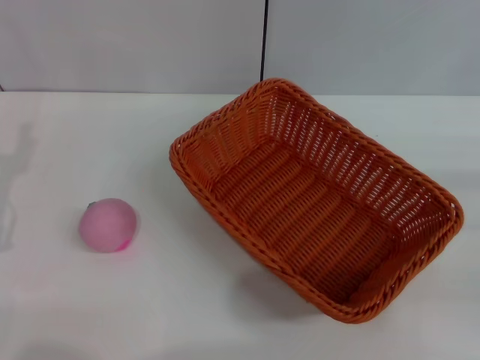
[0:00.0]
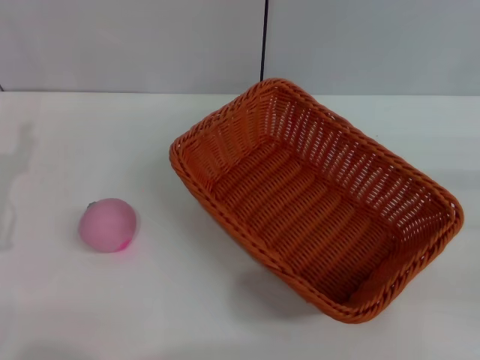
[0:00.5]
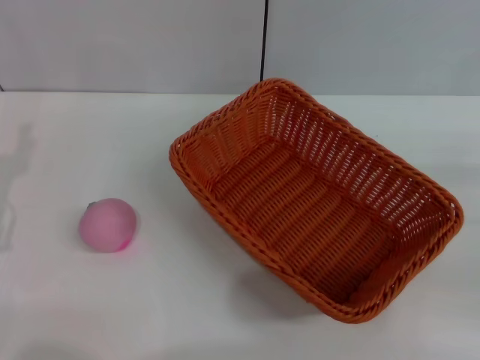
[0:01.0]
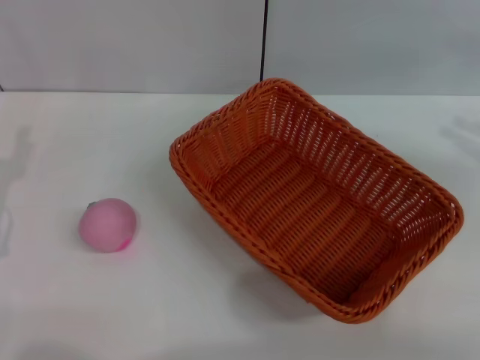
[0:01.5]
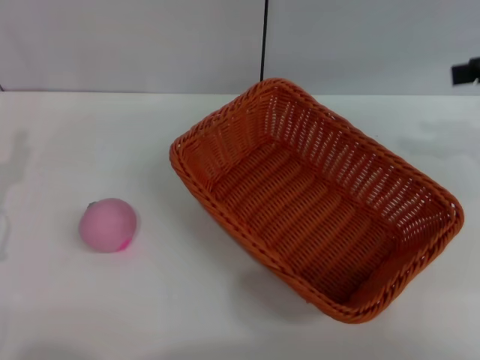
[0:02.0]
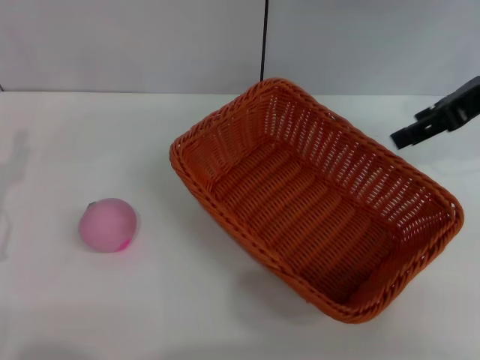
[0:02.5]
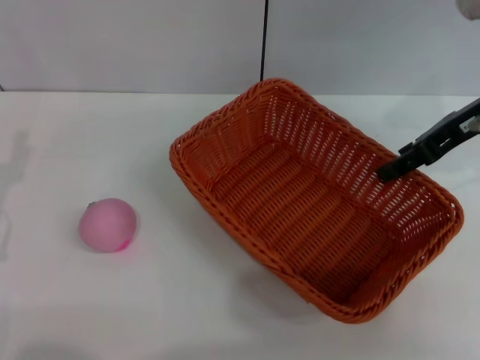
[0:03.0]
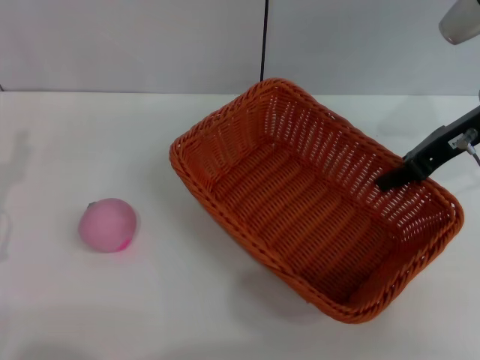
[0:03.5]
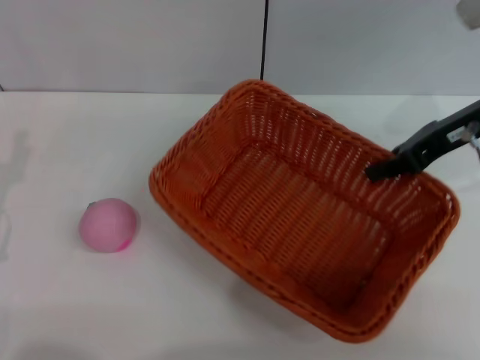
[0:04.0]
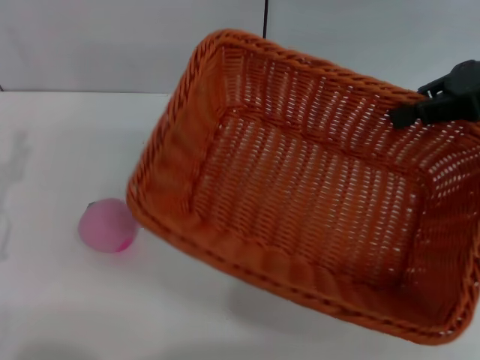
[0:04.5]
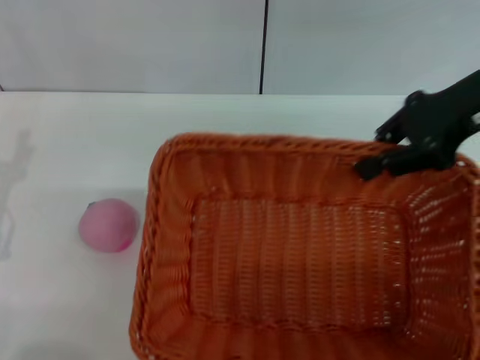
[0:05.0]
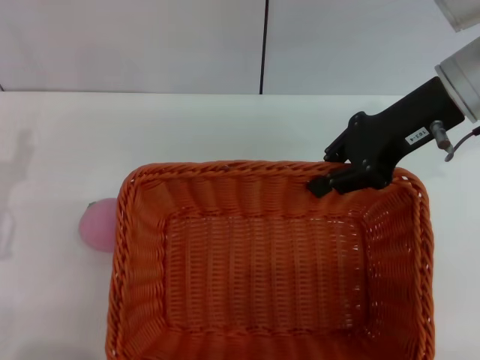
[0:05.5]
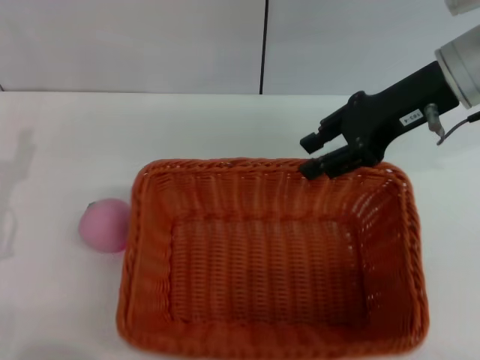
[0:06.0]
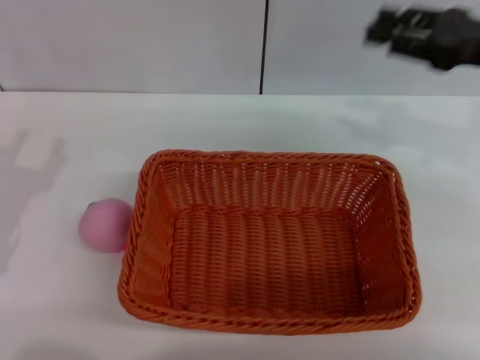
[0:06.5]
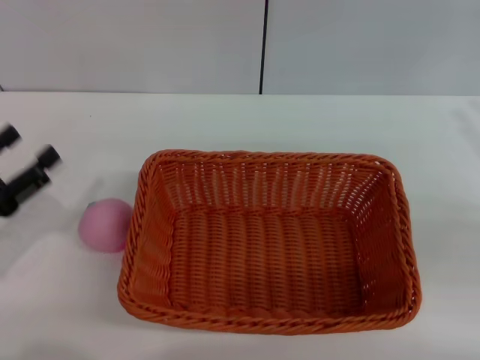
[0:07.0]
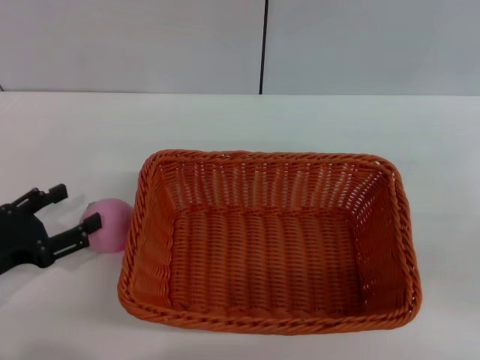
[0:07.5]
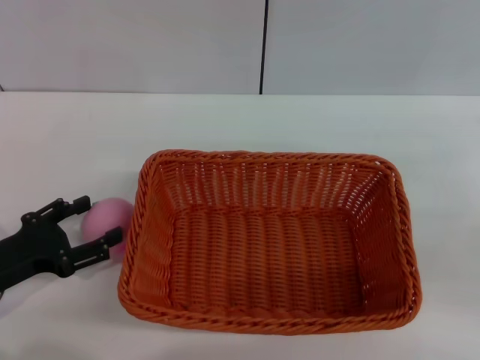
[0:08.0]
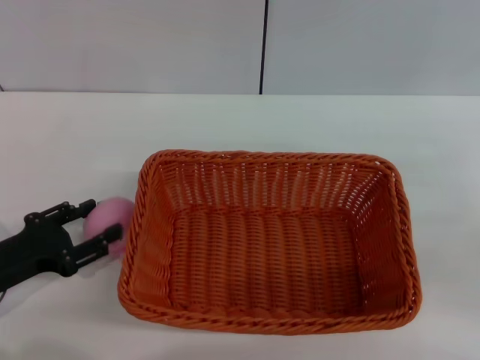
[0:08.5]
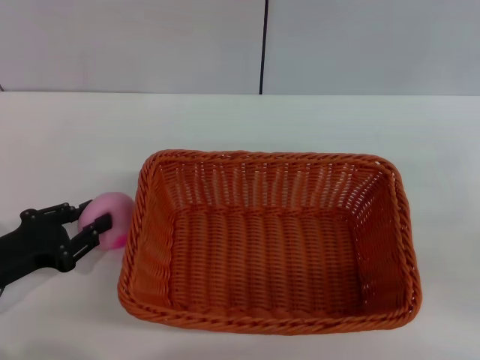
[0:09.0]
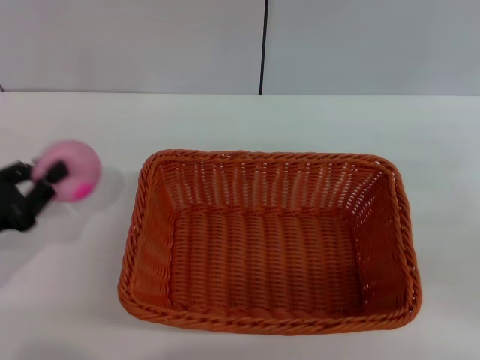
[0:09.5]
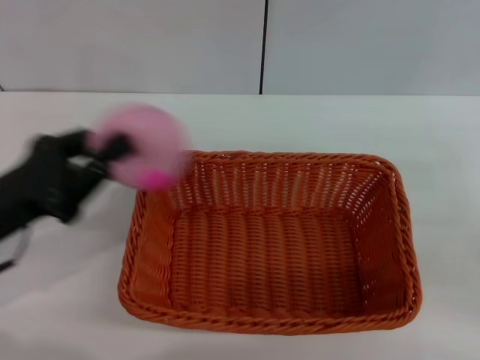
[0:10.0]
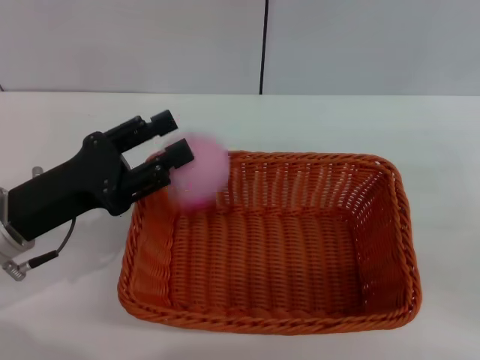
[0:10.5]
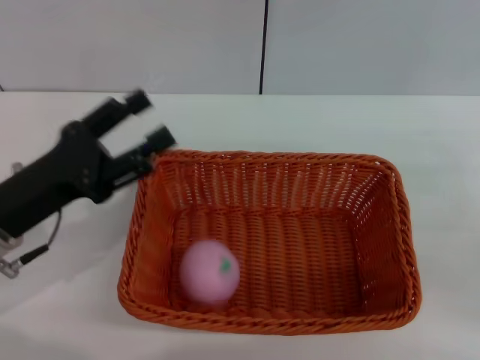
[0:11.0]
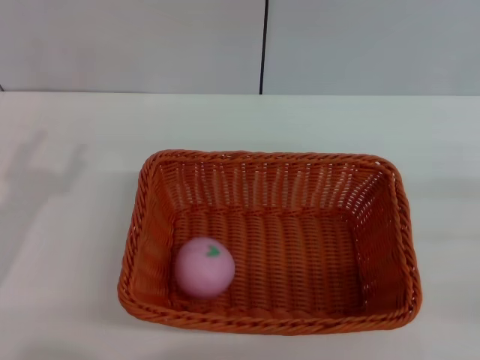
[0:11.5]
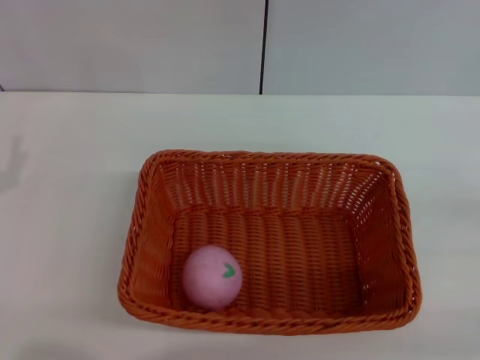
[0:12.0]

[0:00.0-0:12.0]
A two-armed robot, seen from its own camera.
Step, 0.0 to 4.0 s: Pick up the light basket with the right gripper.
Step, 4.5 to 6.0 s: Place the light basket in the center of view with the right gripper.
Step, 6.5 to 9.5 s: Pick up the peach with the left gripper.
Step, 10.0 to 10.5 s: Place the peach into the basket with the left gripper.
0.0 to 2.0 s: The right gripper is displaced upward and forward by approximately 20 cm.
2.0 to 4.0 s: The right gripper shifts about 10 cm to the left and downward, and closes up.
4.0 to 6.0 s: The right gripper ends up some 5 cm from where it was.
6.0 to 8.0 s: The right gripper heads to the right, backward and downward, covering about 25 cm.
8.0 to 10.0 s: The left gripper moves upward, approximately 5 cm, and closes.
10.0 to 12.0 s: The left gripper moves about 5 cm, and opens. The right gripper shifts roughly 5 cm backward.

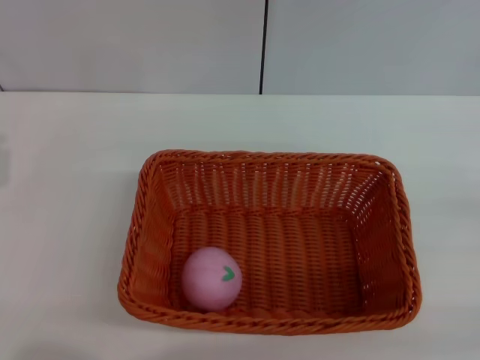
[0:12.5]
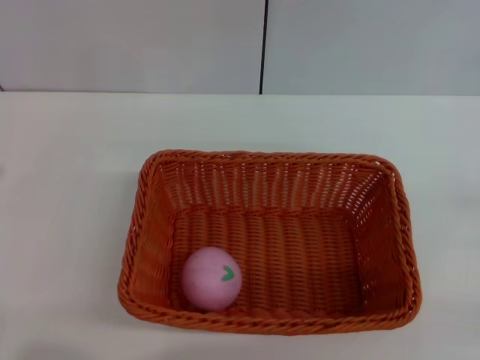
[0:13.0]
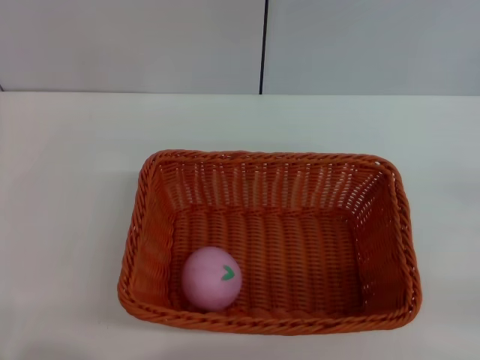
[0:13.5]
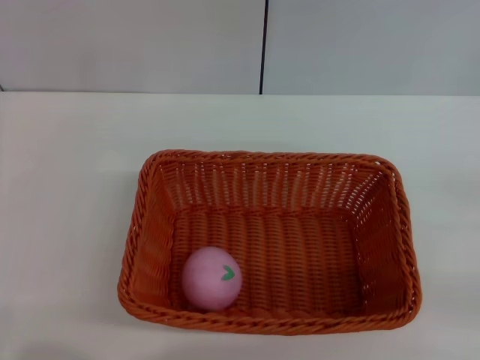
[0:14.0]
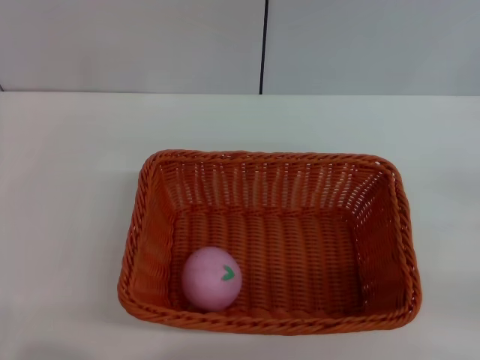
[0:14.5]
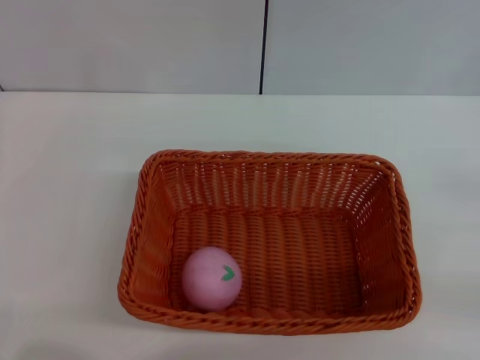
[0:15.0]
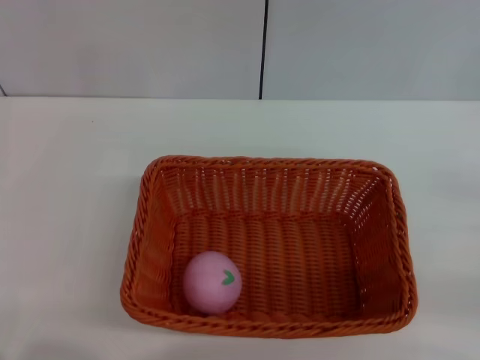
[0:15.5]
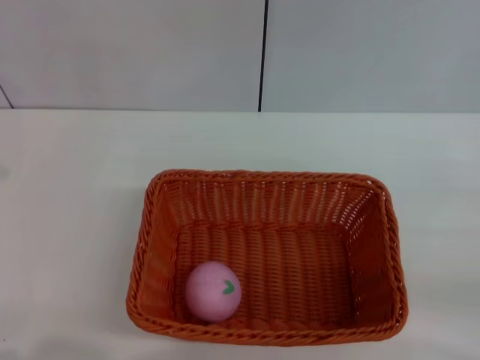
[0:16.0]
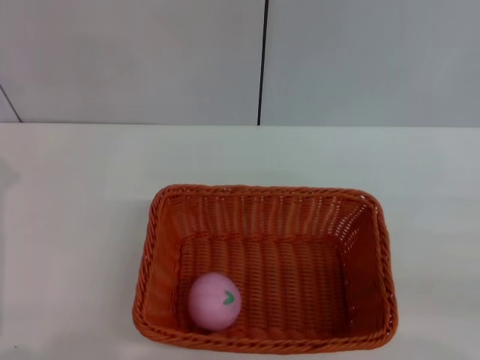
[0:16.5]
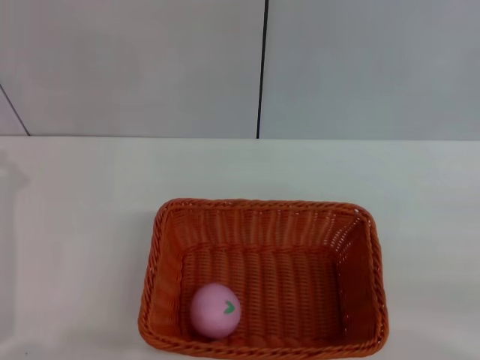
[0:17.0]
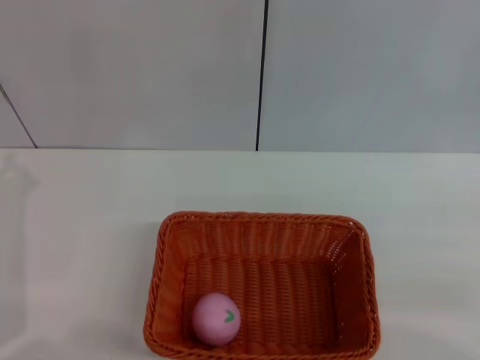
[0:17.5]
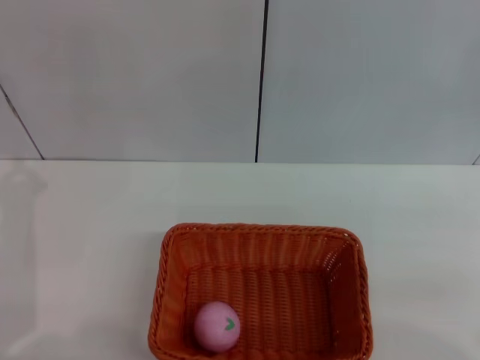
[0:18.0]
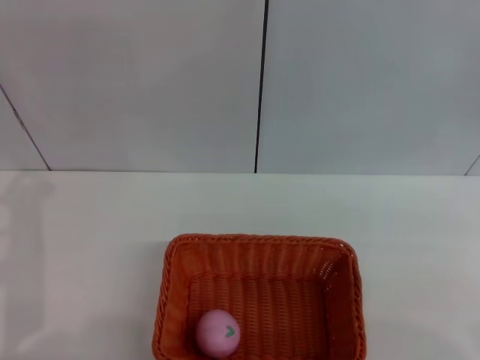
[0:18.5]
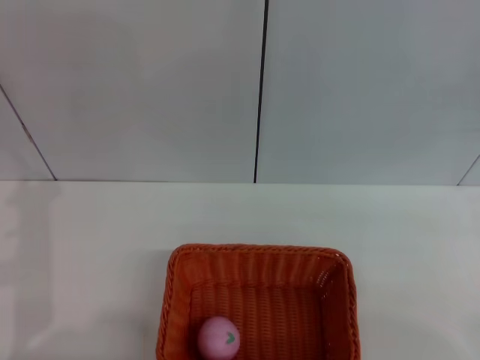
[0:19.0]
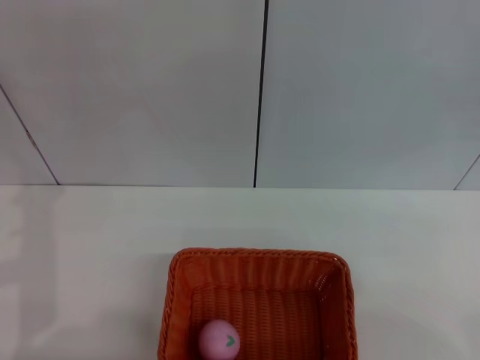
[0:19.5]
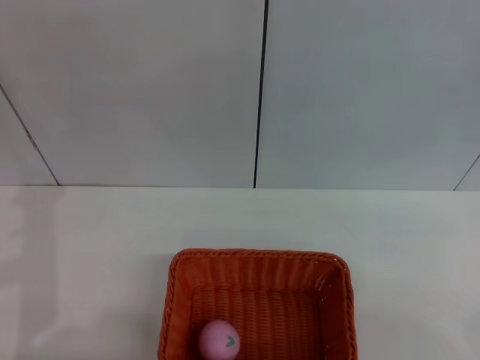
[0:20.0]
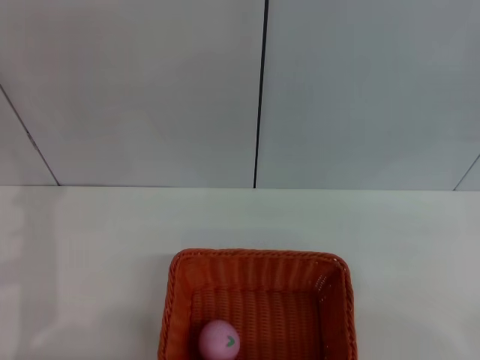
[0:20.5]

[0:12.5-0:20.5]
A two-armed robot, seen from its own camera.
18.5 to 20.5 s: Both grippers stay about where they are.

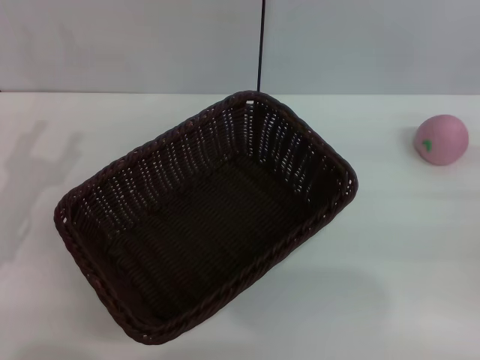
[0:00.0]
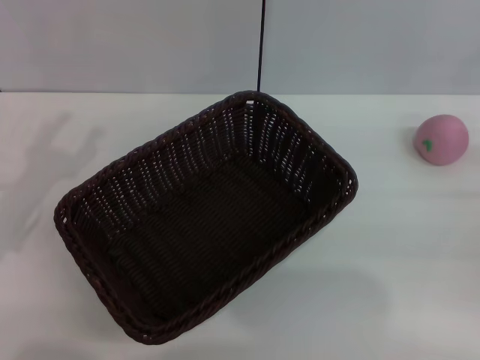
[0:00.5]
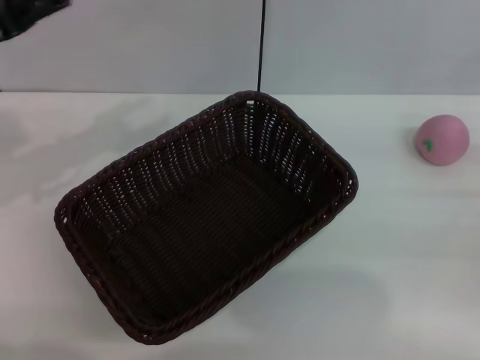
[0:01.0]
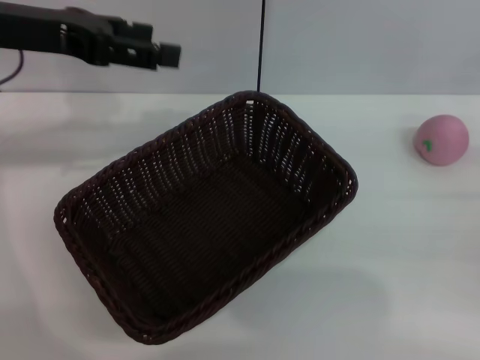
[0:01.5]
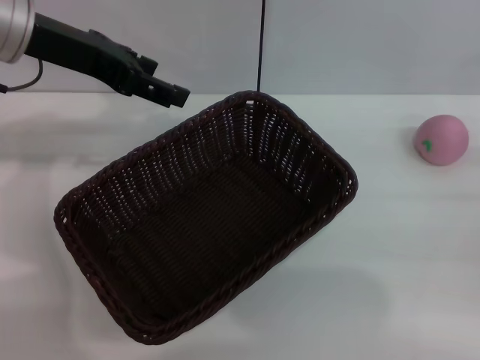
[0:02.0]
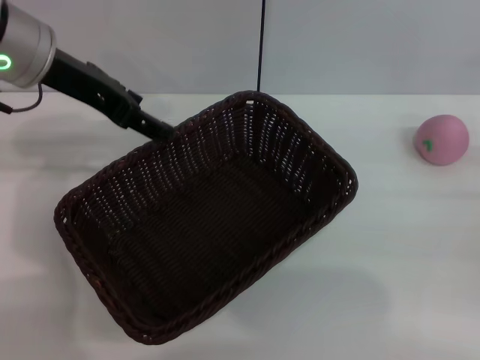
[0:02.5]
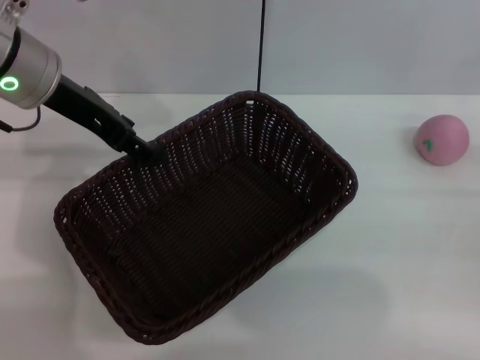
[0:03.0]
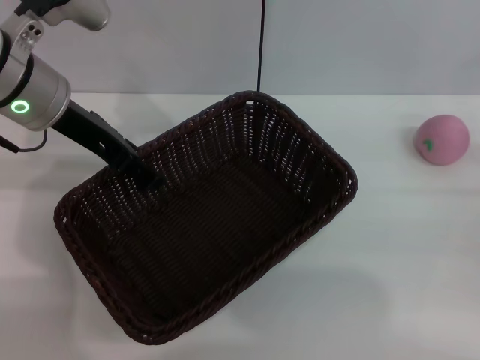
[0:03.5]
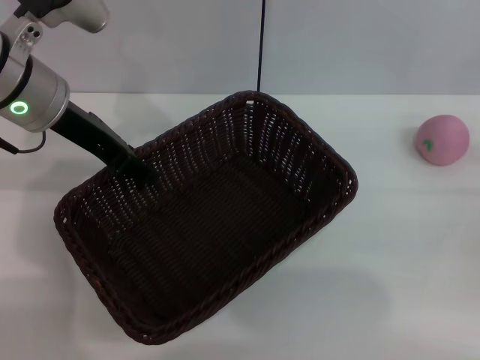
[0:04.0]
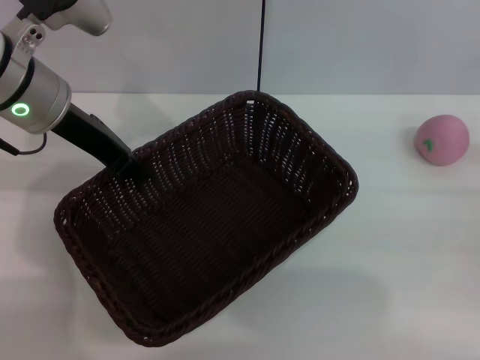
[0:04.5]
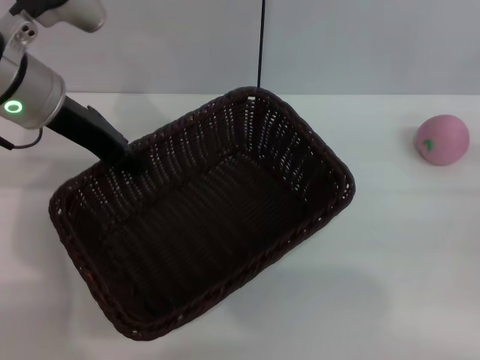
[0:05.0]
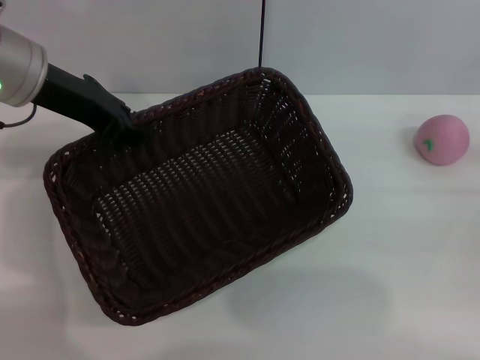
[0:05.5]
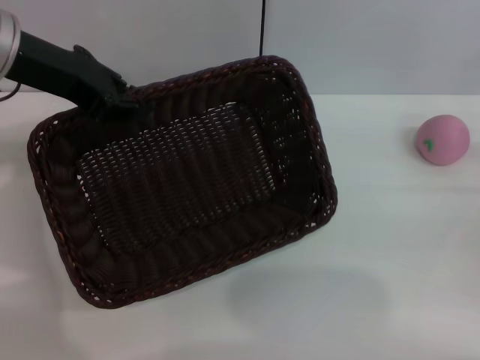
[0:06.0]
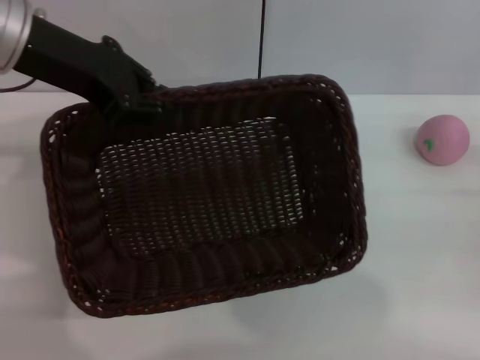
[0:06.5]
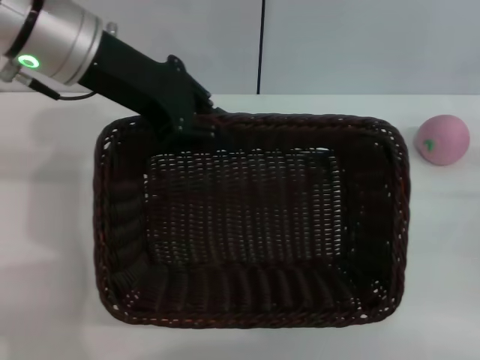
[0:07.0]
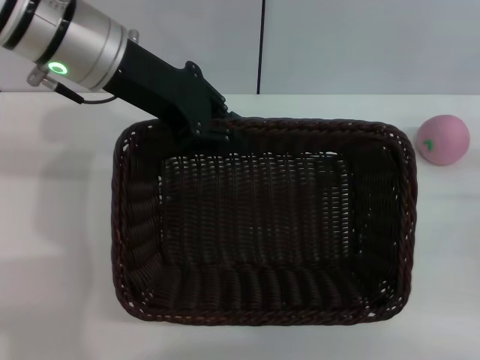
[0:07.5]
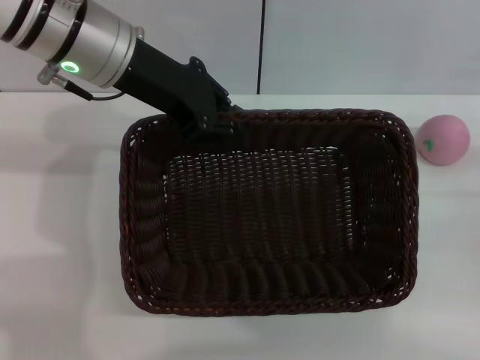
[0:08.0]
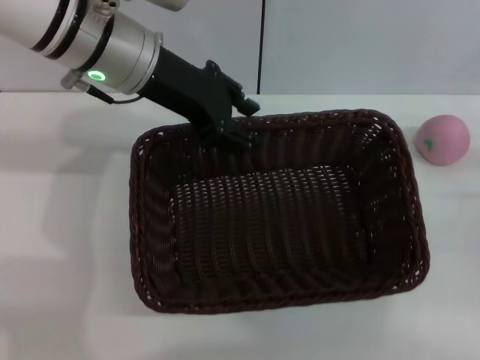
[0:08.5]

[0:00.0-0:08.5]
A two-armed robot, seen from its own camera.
Step, 0.0 to 5.0 s: Pick up the dark basket with the left gripper.
0.0 to 2.0 s: The left gripper is displaced upward, forward and to the right by some 25 cm.
2.0 to 4.0 s: The left gripper moves downward, about 5 cm.
4.0 to 6.5 s: The left gripper shifts about 5 cm upward, and closes.
6.5 to 8.5 s: The left gripper heads to the right, covering roughly 10 cm.
